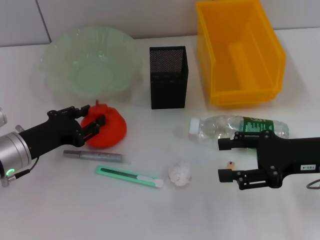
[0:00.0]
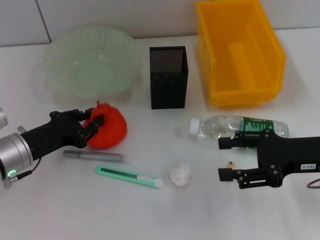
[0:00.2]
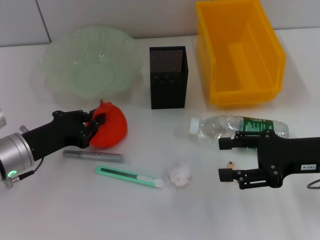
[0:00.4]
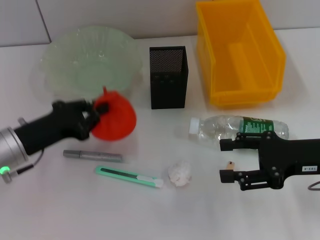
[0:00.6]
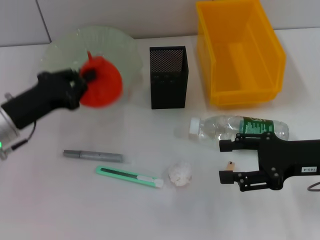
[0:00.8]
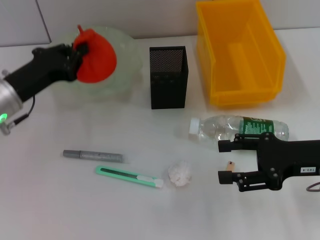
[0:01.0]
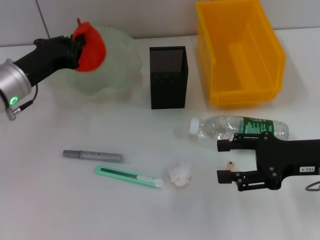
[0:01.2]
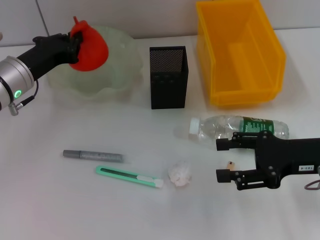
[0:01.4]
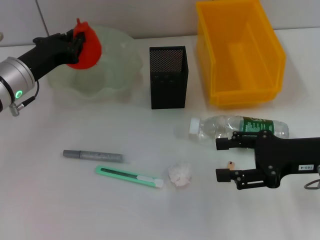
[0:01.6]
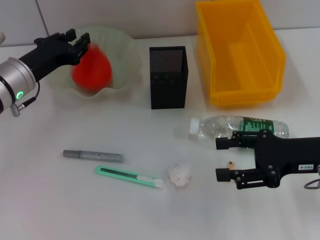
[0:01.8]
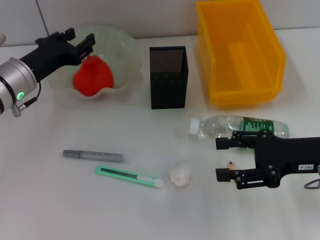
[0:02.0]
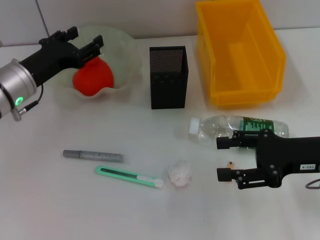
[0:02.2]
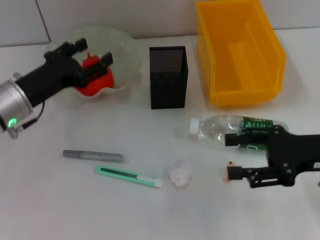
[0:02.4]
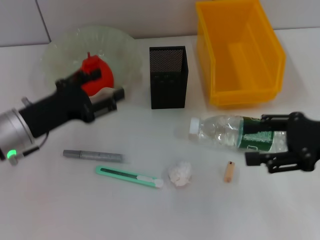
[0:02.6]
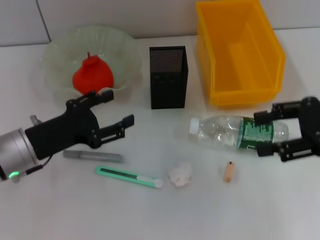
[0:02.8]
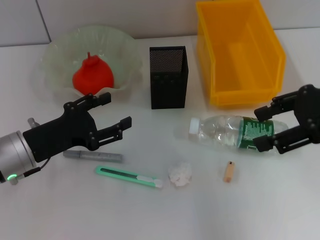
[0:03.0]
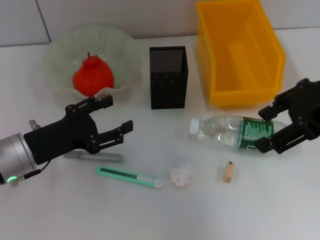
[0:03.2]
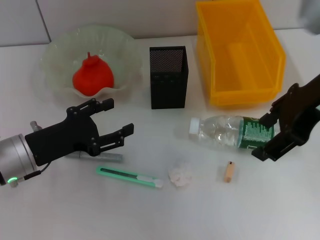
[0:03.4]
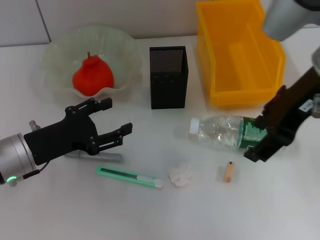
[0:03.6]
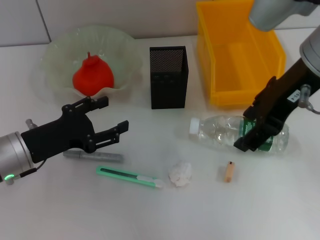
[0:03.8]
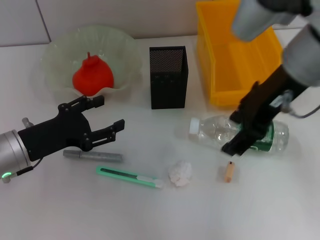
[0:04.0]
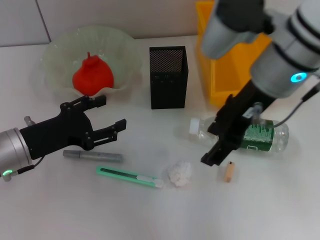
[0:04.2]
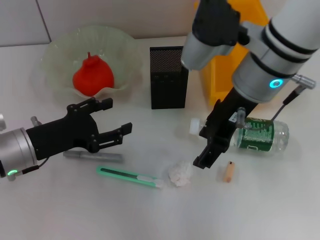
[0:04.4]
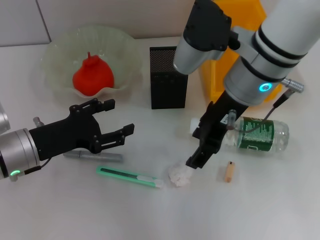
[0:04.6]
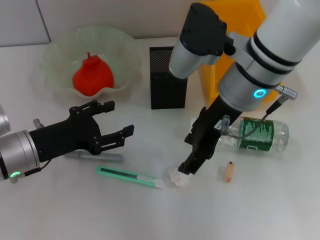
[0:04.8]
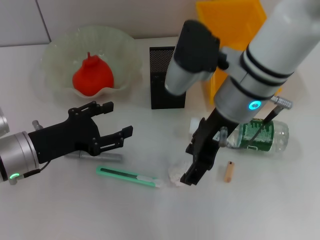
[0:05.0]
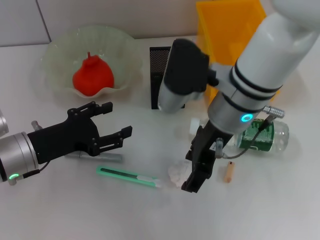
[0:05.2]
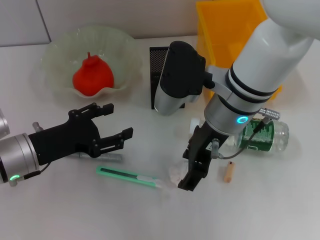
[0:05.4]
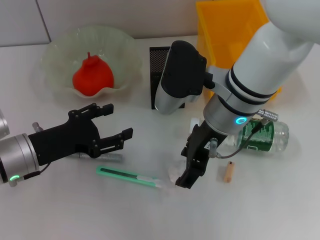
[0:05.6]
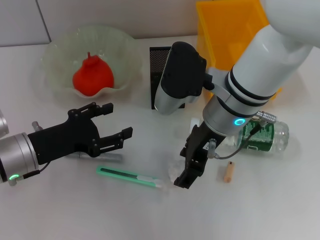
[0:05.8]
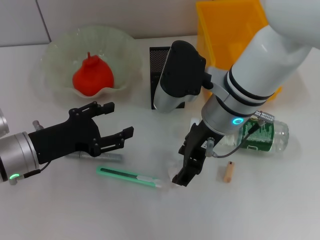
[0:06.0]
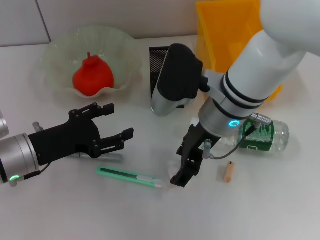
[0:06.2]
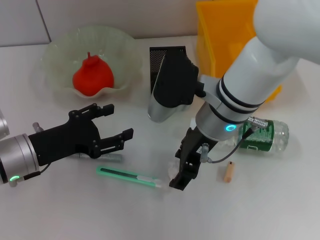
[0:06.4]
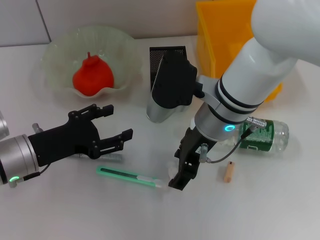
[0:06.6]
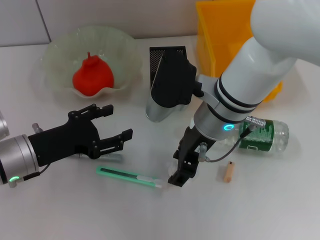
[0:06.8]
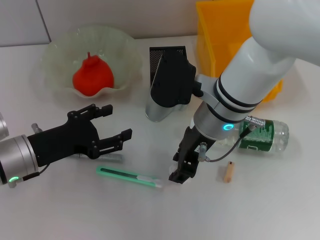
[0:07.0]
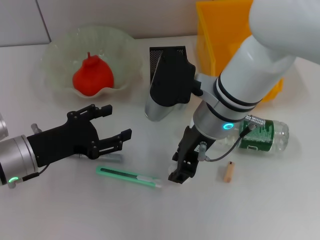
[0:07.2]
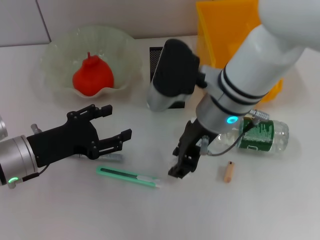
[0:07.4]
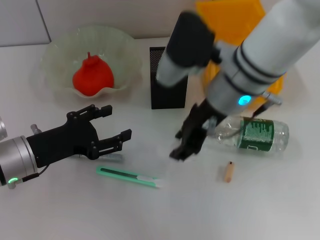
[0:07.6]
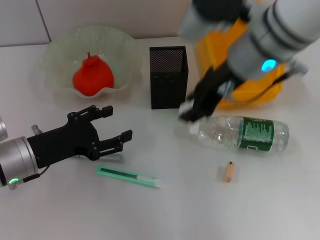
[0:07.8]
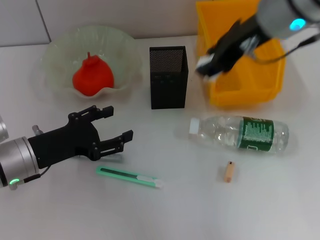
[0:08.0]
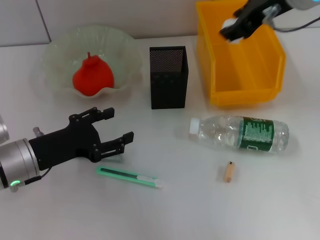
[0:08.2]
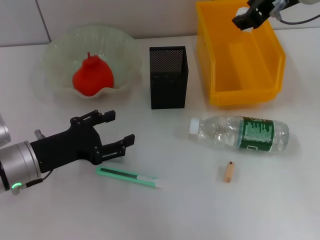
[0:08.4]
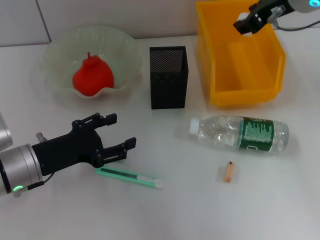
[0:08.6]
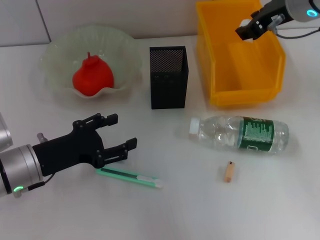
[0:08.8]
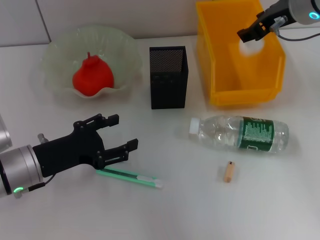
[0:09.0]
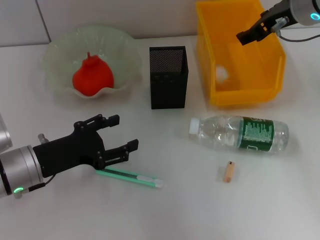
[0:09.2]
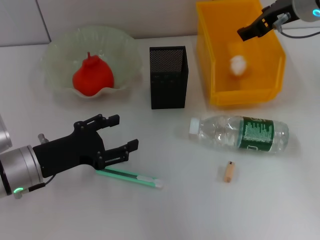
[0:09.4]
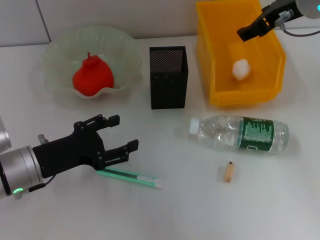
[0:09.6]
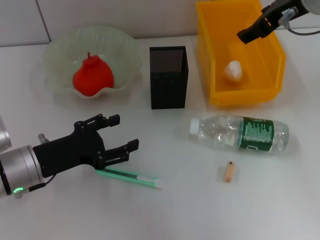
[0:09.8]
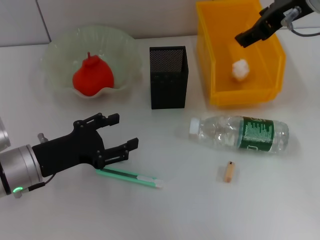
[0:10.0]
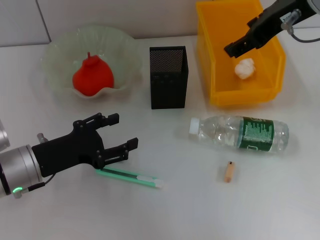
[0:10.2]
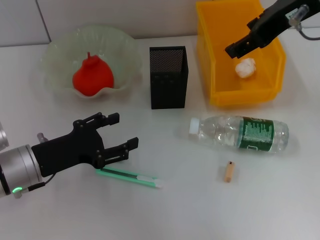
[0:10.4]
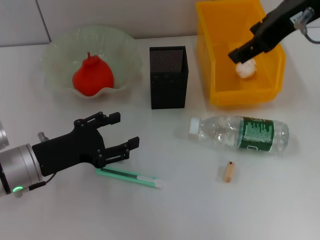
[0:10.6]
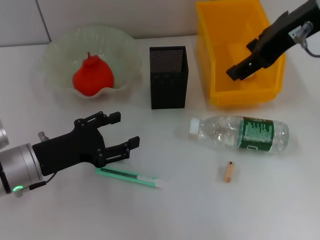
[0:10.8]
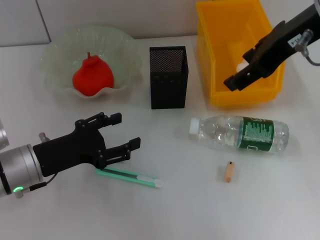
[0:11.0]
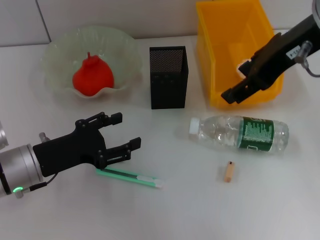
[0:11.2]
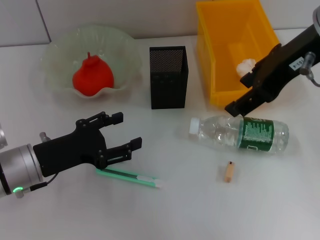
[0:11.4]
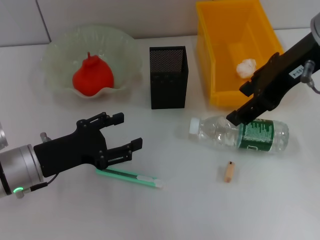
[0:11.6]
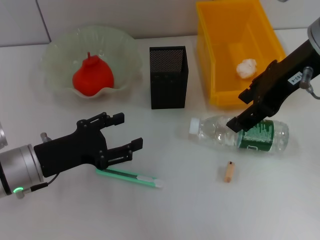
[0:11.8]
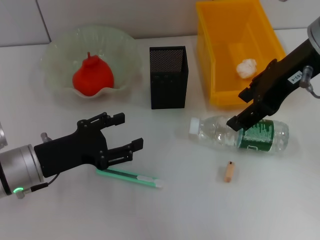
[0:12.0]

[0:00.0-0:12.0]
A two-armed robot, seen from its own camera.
Step, 0:00.6 to 0:01.8: Place the orange into the fruit bowl with the left hand.
Step, 0:02.0 to 0:07.2: Grab the paper ball with the right hand.
Step, 0:07.4 to 0:09.0: Place the paper ball into the trash can with the right hand.
0:00.0 to 0:01.6: The left gripper is displaced forward and upward by roughly 10 cm, and closes.
0:01.6 to 0:03.0: The right gripper heads upward, covering roughly 15 cm; the left gripper goes approximately 10 cm backward, and opens.
0:03.0 to 0:04.4: The right gripper goes some 15 cm to the left.
0:04.4 to 0:06.0: The right gripper travels downward by some 5 cm.
0:06.0 to 0:07.6: The right gripper closes up.
0:07.6 to 0:09.0: The right gripper shifts approximately 15 cm to the right and forward.
0:09.0 to 0:10.4: The right gripper is displaced upward and backward by roughly 10 cm, and opens.

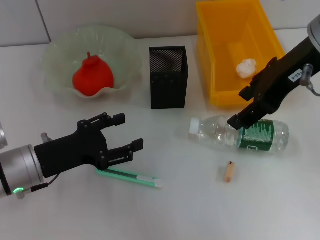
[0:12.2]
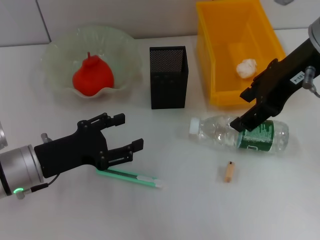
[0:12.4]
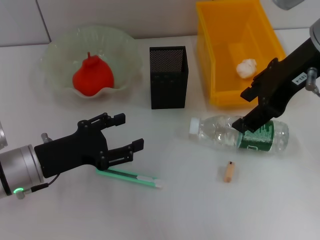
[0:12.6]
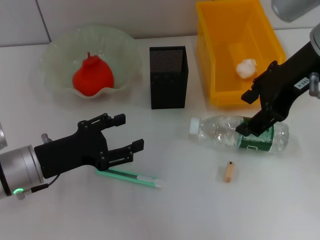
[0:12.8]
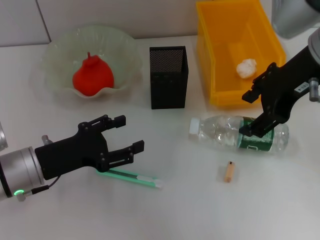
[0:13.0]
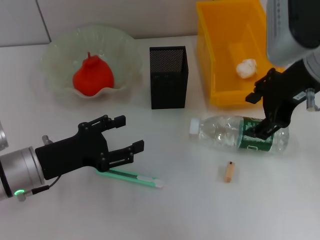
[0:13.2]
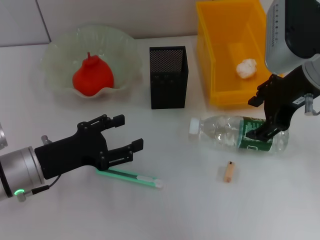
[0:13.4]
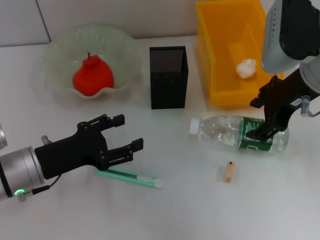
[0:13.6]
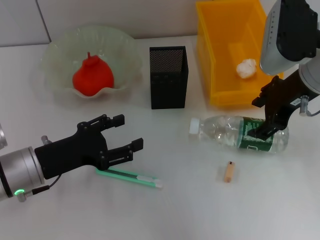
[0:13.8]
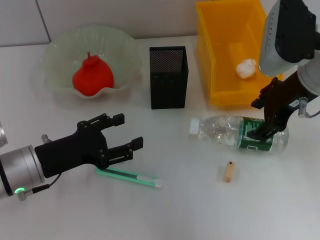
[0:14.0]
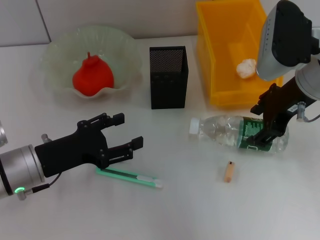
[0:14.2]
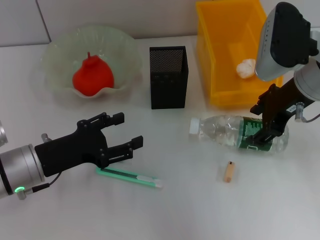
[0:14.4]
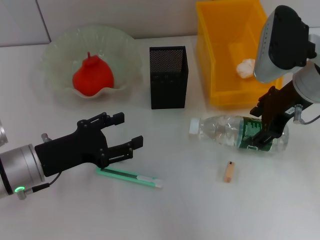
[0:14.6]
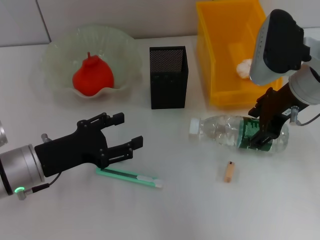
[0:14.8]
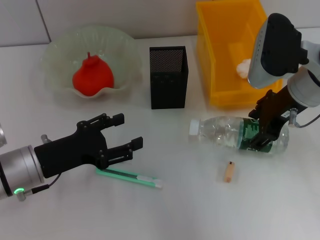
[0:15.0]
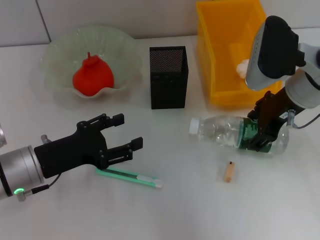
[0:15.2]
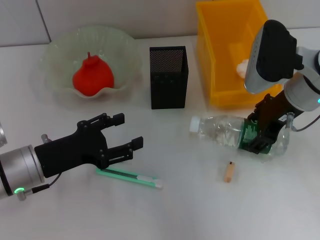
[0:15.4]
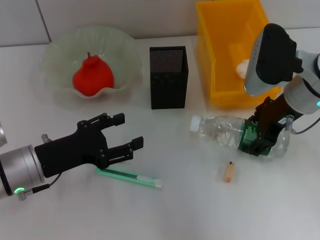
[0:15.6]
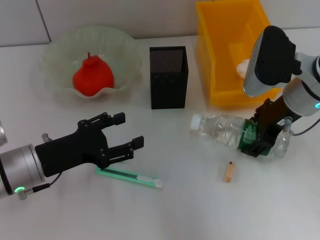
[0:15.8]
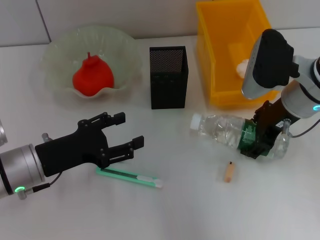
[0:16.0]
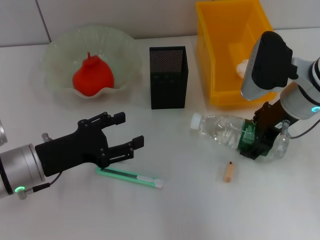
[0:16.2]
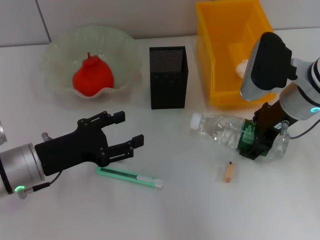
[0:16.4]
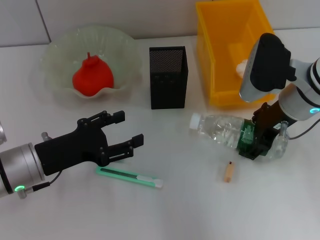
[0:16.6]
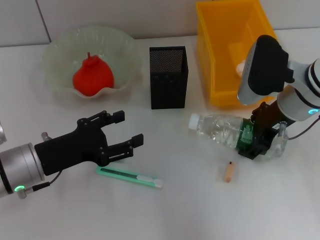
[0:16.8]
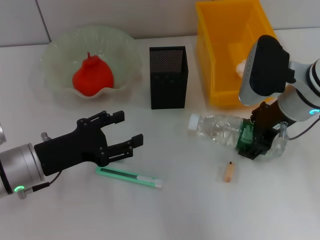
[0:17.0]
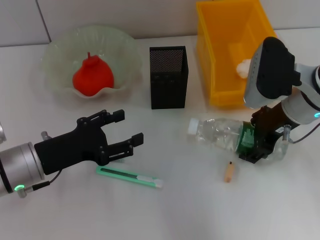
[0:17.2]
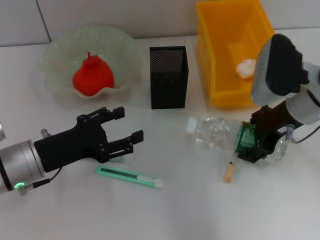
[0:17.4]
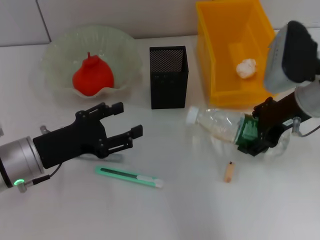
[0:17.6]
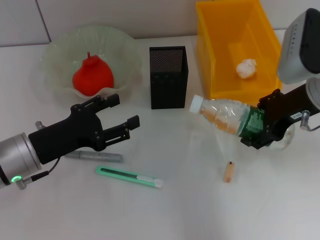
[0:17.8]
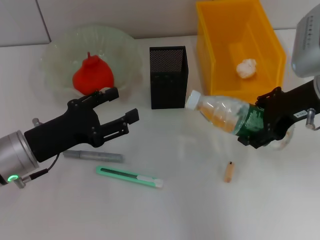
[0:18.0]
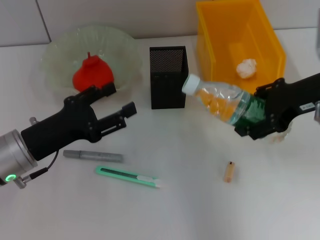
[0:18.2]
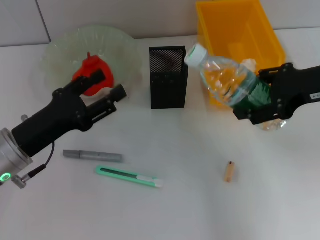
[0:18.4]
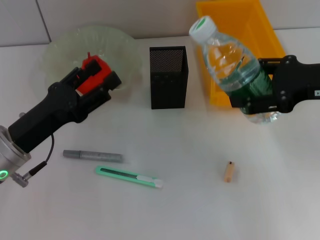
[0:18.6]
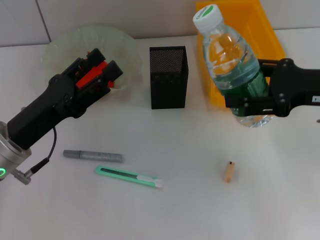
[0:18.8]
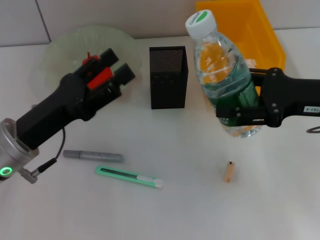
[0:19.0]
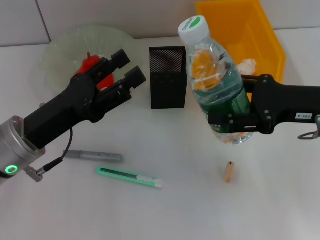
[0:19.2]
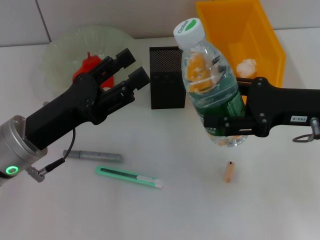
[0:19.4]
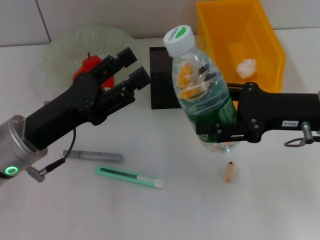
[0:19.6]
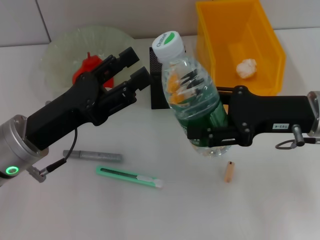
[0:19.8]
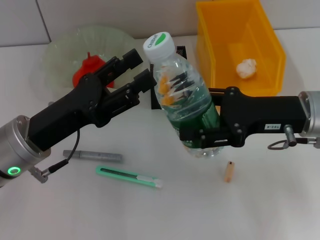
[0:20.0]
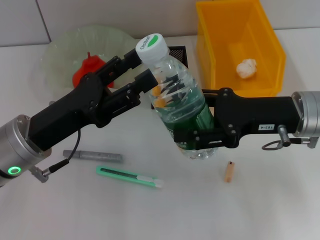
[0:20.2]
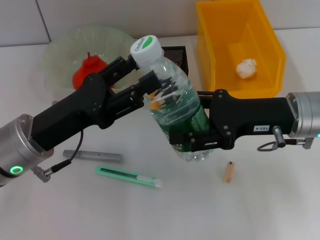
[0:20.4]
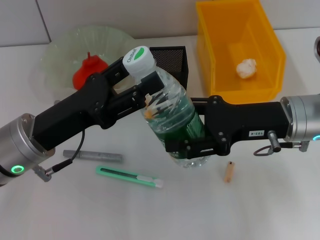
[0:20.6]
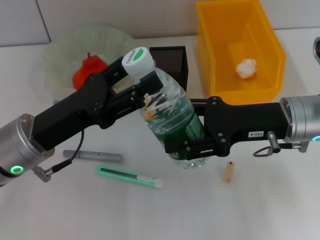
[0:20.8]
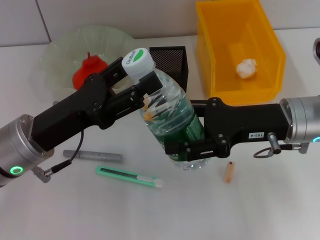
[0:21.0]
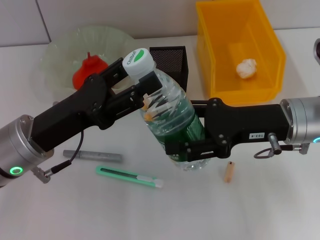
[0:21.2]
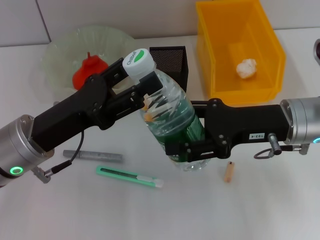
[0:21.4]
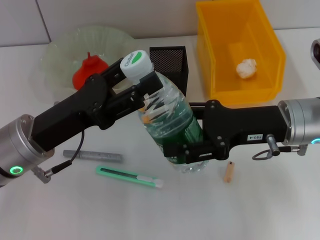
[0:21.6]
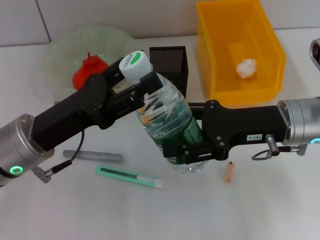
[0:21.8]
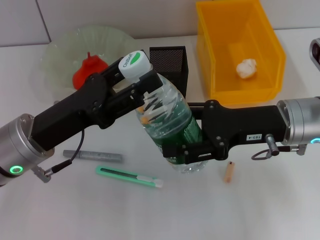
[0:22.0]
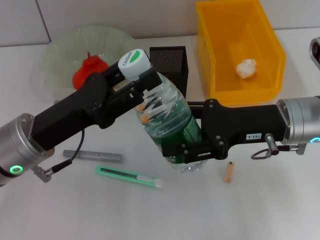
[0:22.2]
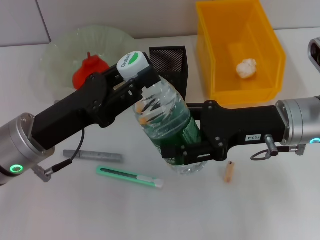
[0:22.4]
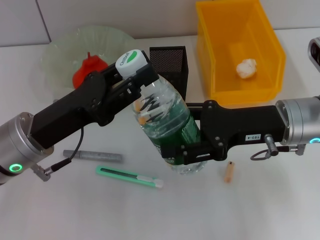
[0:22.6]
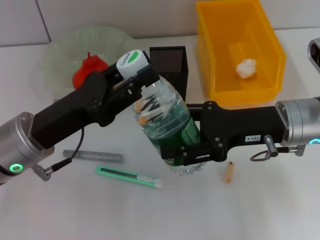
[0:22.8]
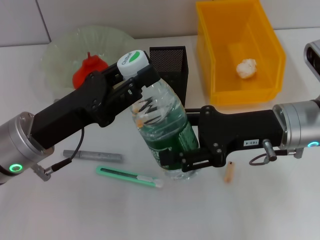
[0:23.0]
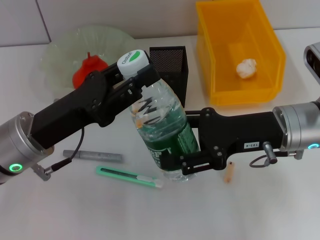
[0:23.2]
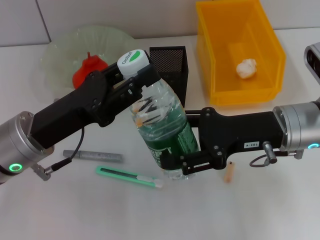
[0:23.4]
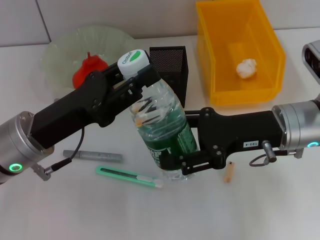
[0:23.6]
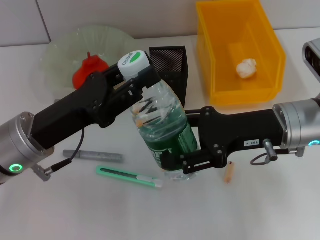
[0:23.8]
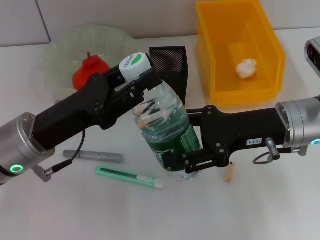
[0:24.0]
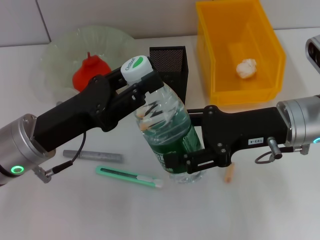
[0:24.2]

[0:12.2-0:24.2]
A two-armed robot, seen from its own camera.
Step, 0:12.2 to 0:16.8: Grab the water bottle with the right hand.
0:12.2 to 0:13.8: The right gripper travels downward by about 5 cm.
0:13.8 to 0:15.2: The grippers stay close to where they were, moving slightly.
0:15.2 to 0:16.6: The grippers stay close to where they were, moving slightly.
0:16.6 to 0:18.2: The right gripper is displaced upward by some 5 cm.
0:18.2 to 0:19.8: The right gripper moves downward, about 5 cm.
0:19.8 to 0:21.2: The grippers make only small movements.
0:21.2 to 0:22.6: The left gripper closes.
0:22.6 to 0:24.2: Both grippers stay put.
